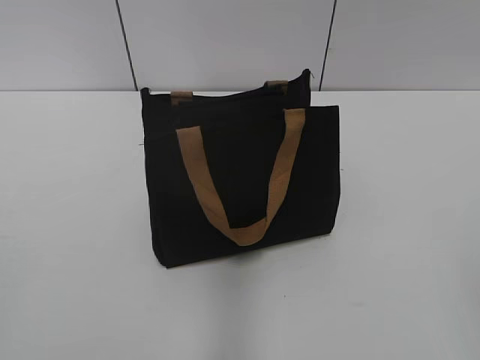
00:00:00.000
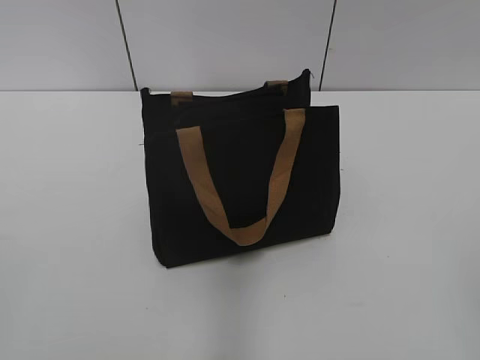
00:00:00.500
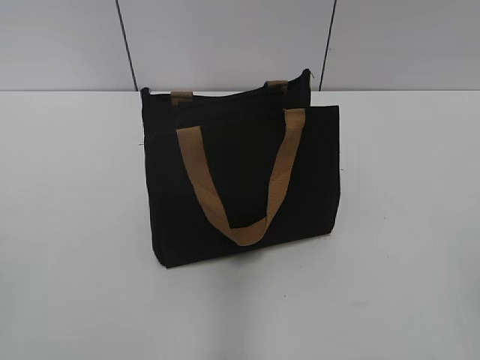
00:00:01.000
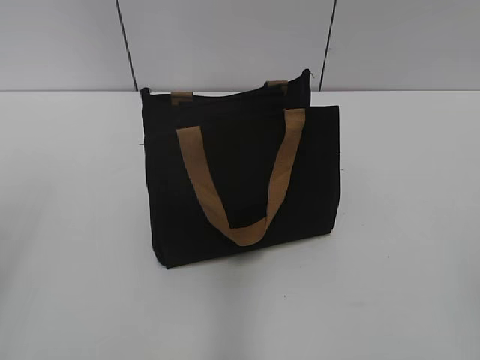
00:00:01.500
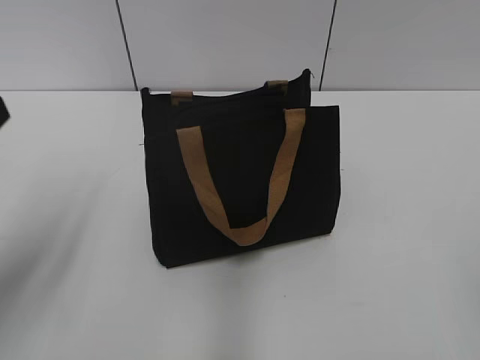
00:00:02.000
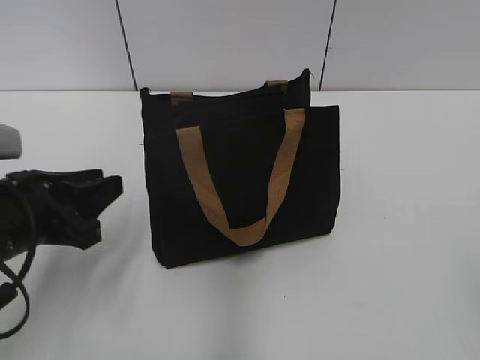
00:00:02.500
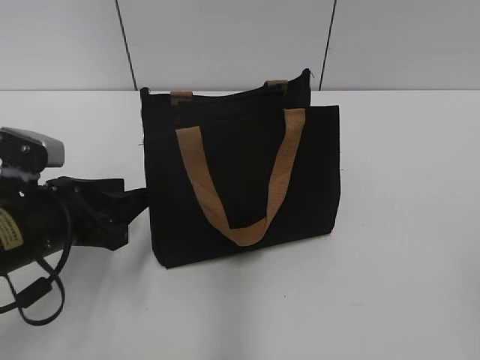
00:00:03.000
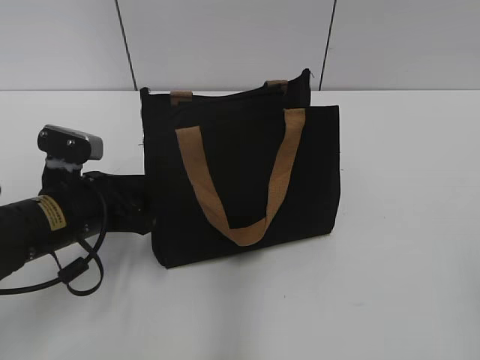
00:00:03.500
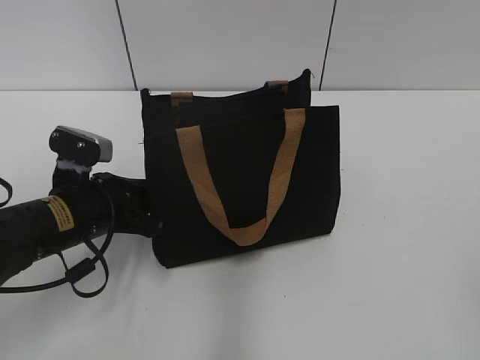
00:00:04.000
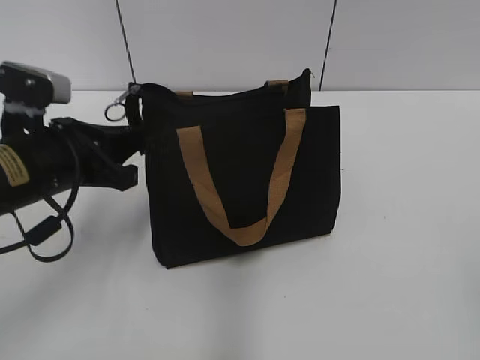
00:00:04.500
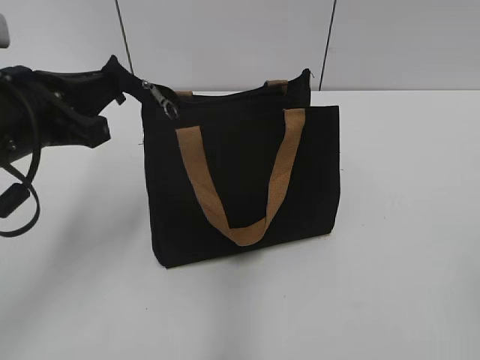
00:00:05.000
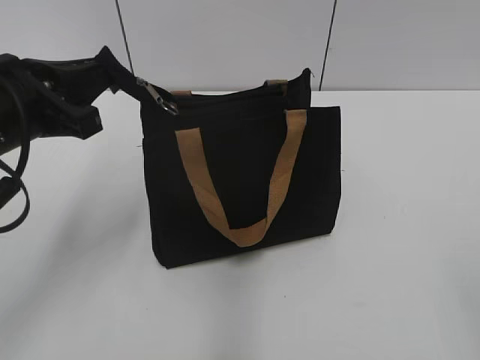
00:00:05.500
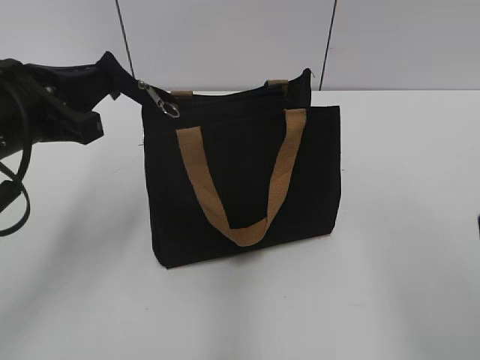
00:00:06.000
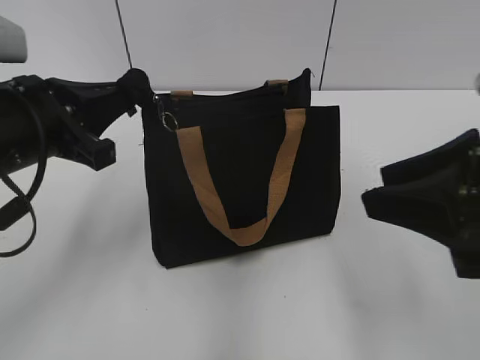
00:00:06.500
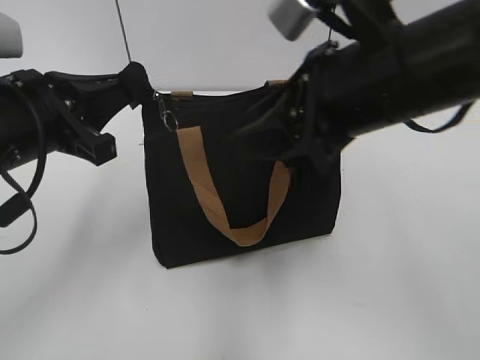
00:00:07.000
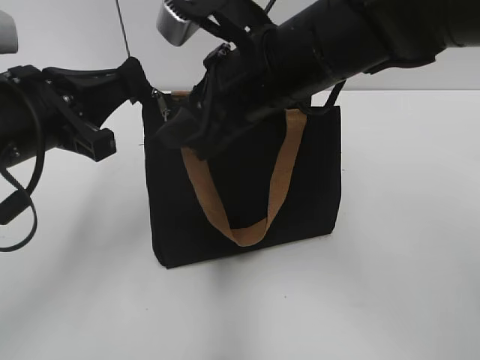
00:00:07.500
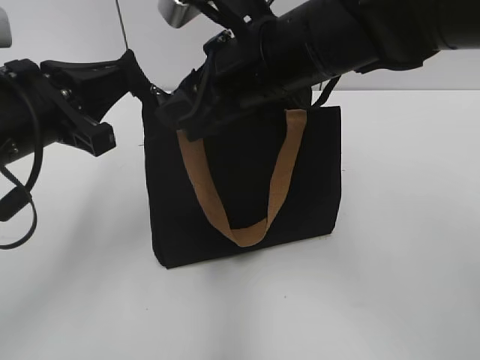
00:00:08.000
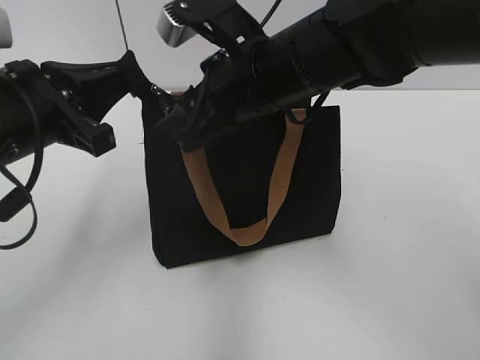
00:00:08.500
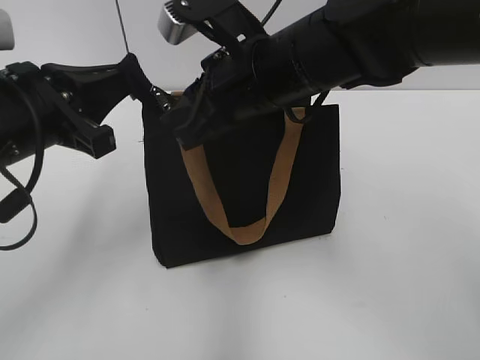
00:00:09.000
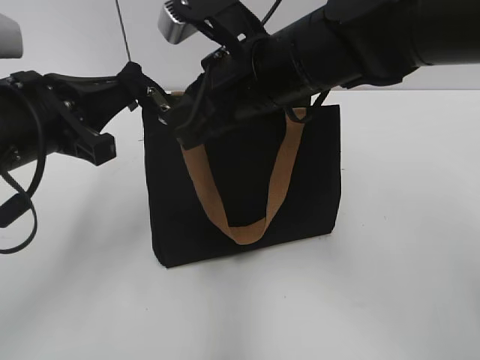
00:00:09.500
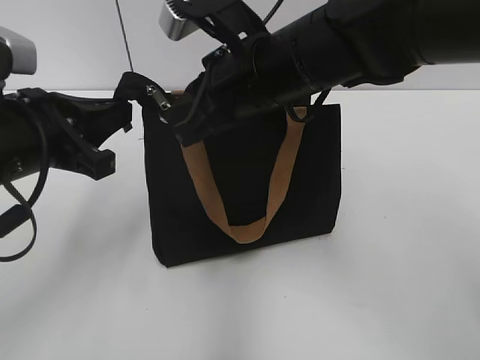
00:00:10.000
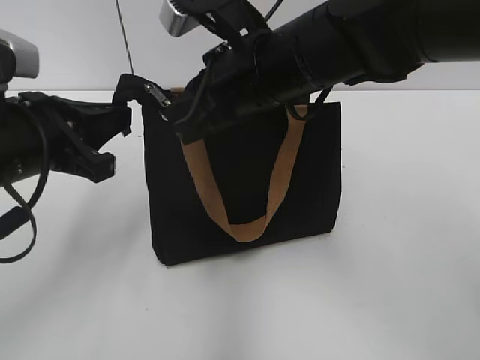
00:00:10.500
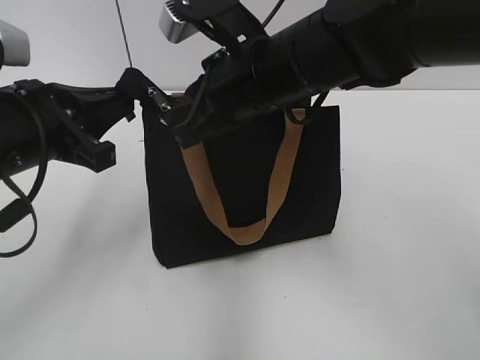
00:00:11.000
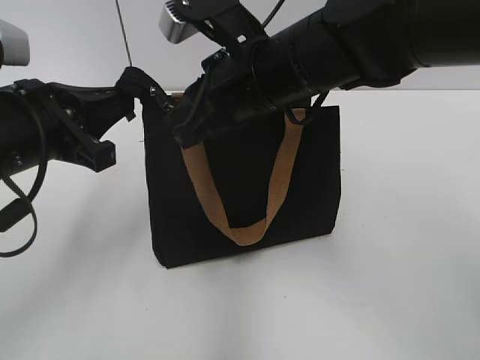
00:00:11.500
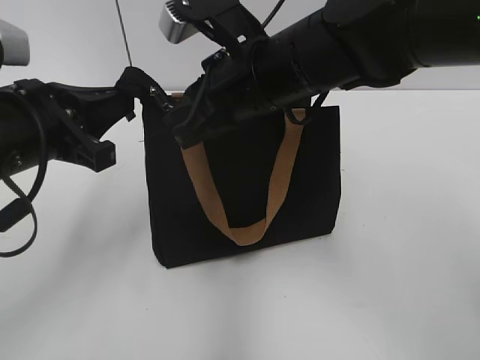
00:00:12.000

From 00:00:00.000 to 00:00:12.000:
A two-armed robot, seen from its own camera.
From 00:00:02.000 to 00:00:04.000: The left gripper shifts approximately 20 cm downward, forward and to the right, and closes up.
From 00:00:04.000 to 00:00:06.000: The left gripper heads upward, covering roughly 15 cm.
From 00:00:06.000 to 00:00:08.000: The right gripper goes about 30 cm forward and to the left.
From 00:00:08.000 to 00:00:10.000: The right gripper closes its fingers.
From 00:00:10.000 to 00:00:12.000: Both grippers stay about where they are.

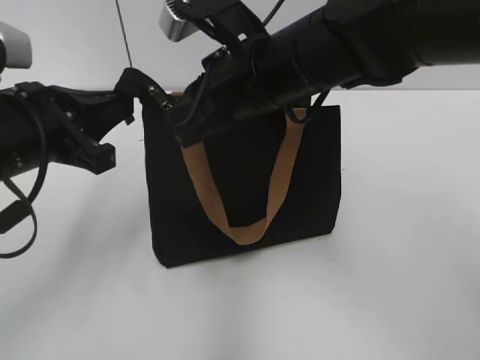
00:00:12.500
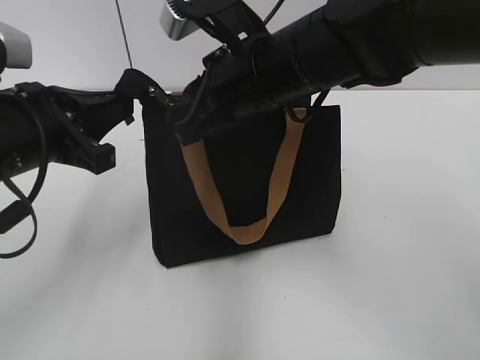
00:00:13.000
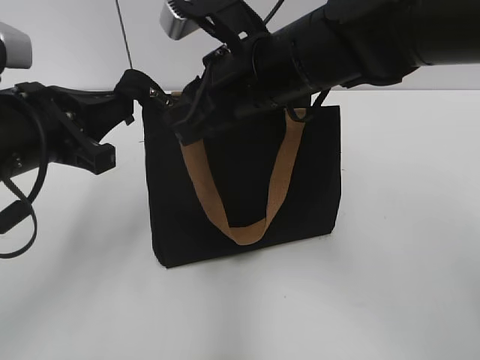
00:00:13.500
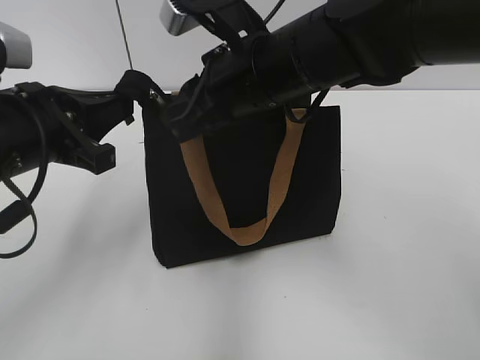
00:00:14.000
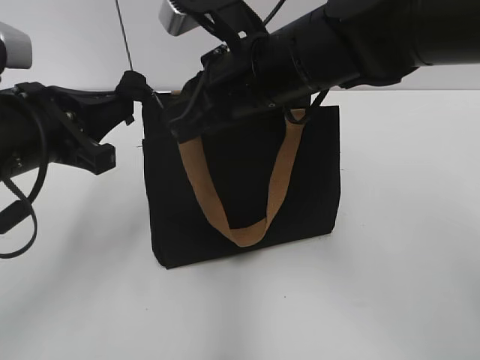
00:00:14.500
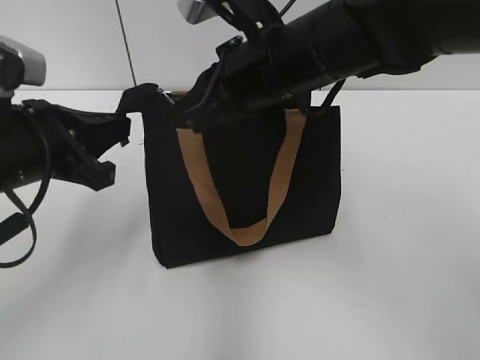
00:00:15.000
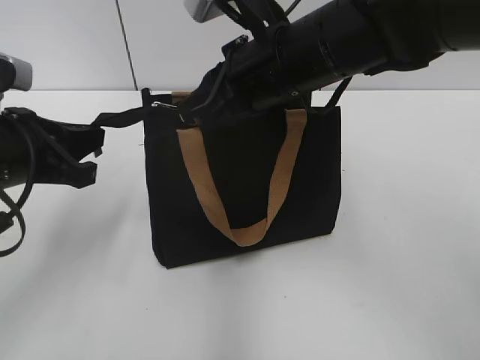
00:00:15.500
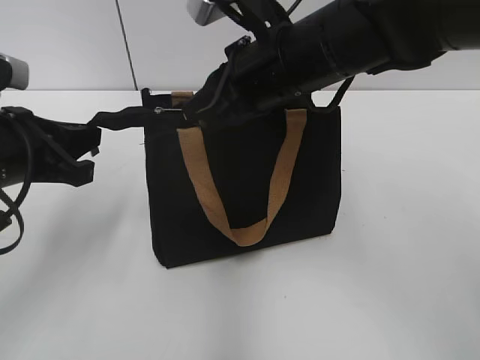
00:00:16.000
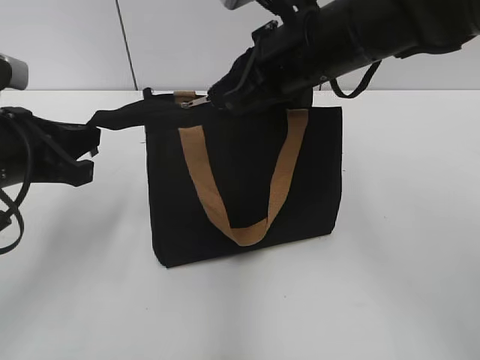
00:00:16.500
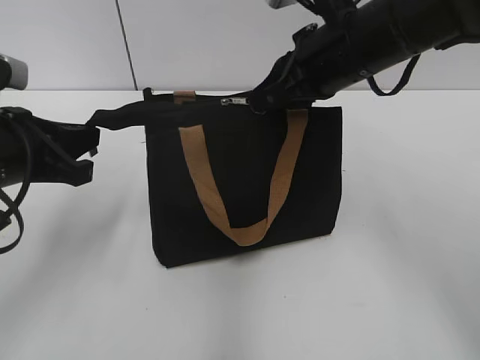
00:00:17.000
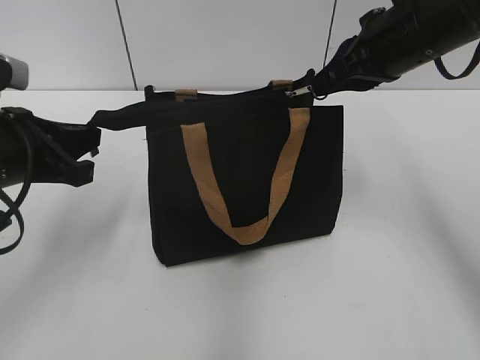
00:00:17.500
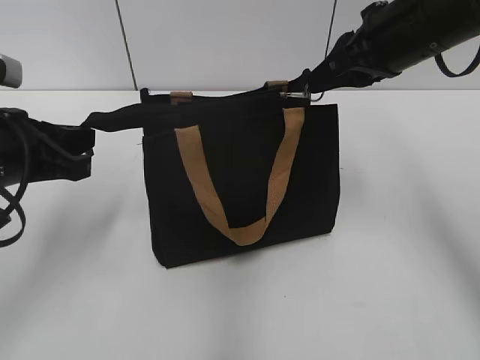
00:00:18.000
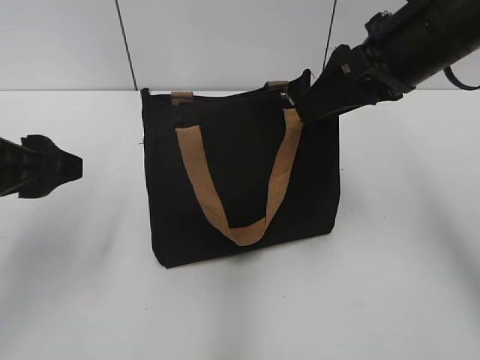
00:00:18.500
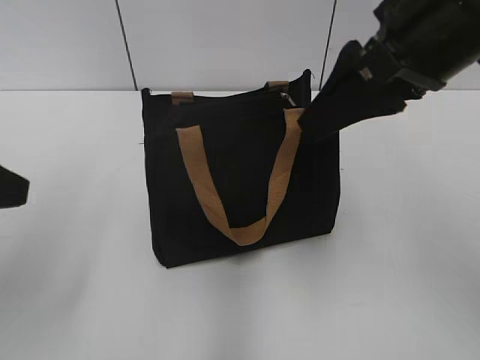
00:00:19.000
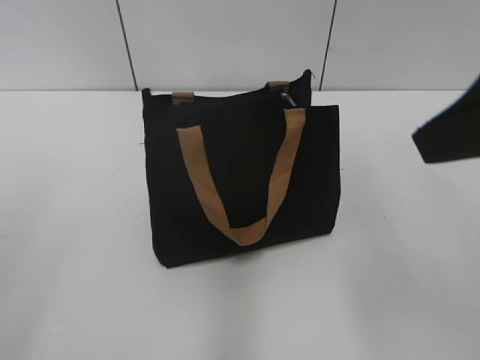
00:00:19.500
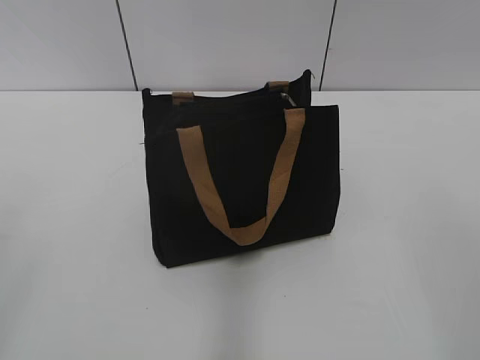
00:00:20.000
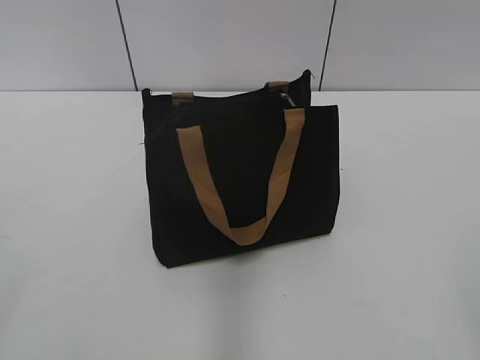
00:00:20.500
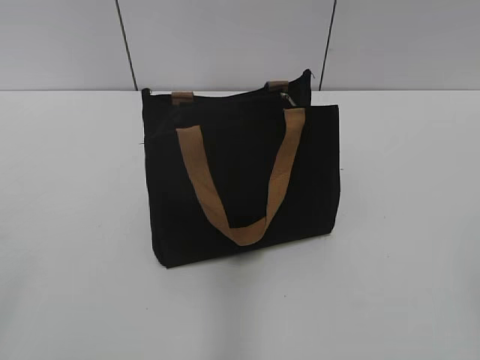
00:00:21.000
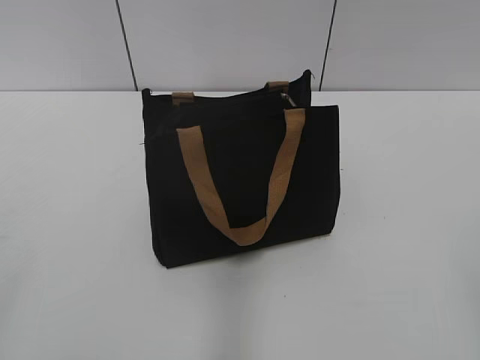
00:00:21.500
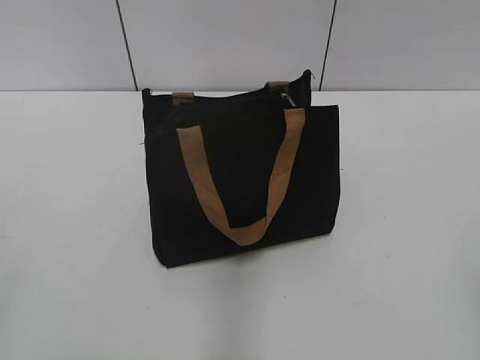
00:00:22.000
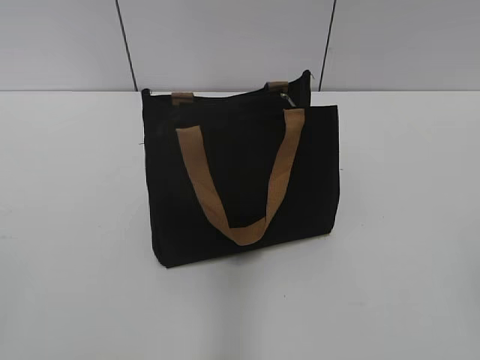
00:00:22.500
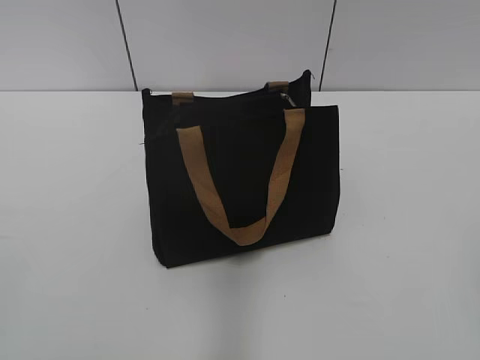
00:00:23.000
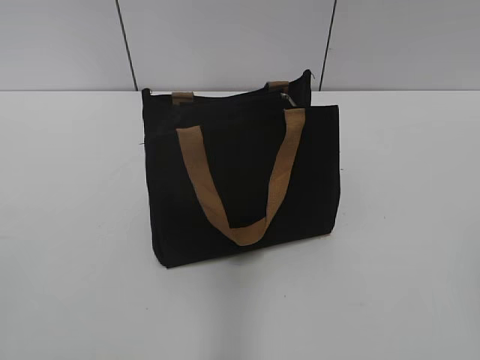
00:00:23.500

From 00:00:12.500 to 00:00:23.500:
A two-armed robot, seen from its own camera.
Step, from 00:00:12.500 to 00:00:18.000: Zip up the bag with your right hand.
From 00:00:12.500 to 00:00:14.500: The two grippers keep their place.
From 00:00:14.500 to 00:00:16.000: The grippers move only a little.
From 00:00:16.000 to 00:00:18.000: The right gripper travels to the right by some 10 cm.
From 00:00:18.000 to 00:00:20.000: The left gripper travels backward, upward and to the left by approximately 25 cm, and opens up, while the right gripper moves backward, about 30 cm, and opens up.

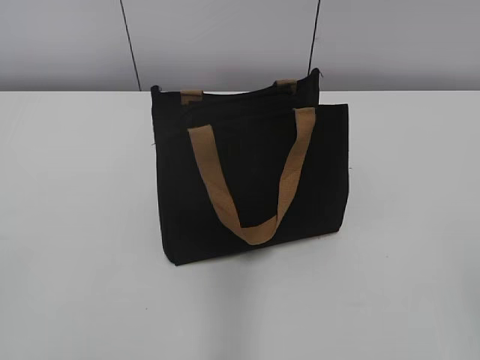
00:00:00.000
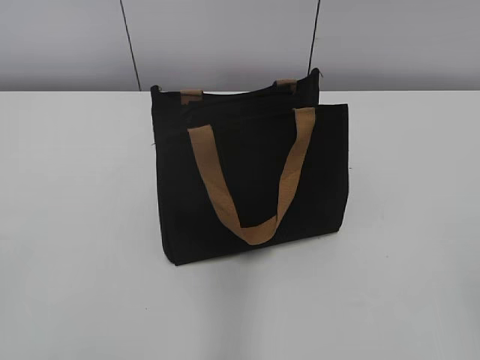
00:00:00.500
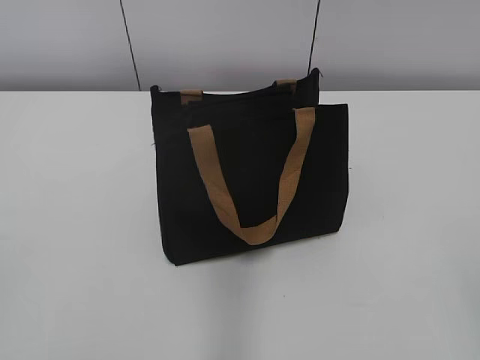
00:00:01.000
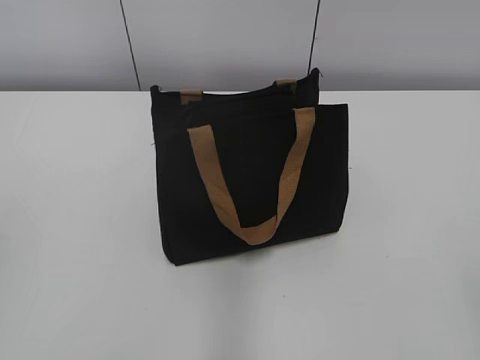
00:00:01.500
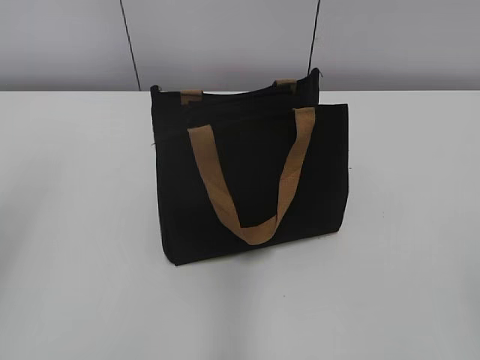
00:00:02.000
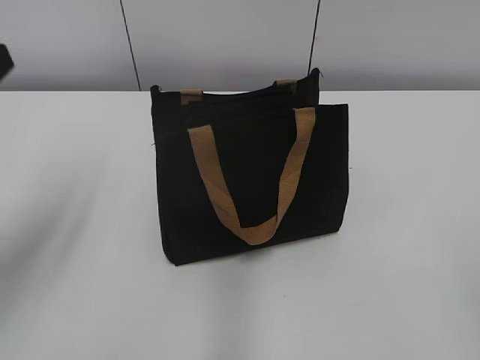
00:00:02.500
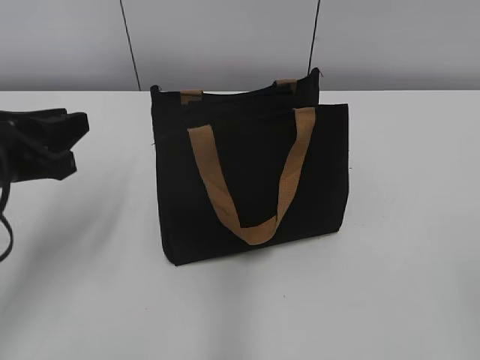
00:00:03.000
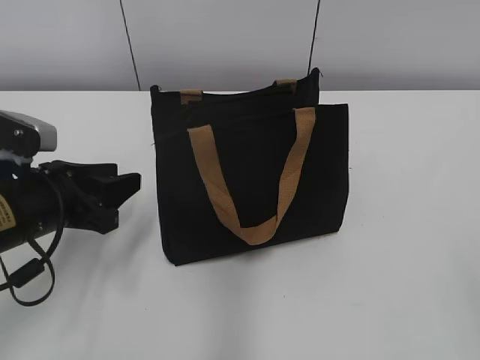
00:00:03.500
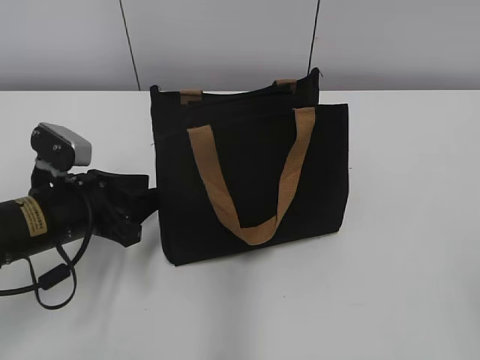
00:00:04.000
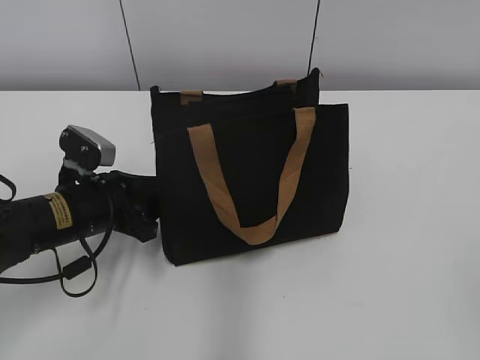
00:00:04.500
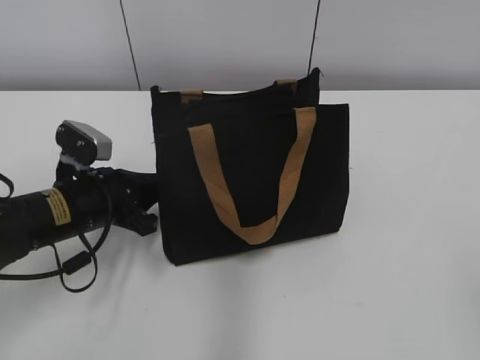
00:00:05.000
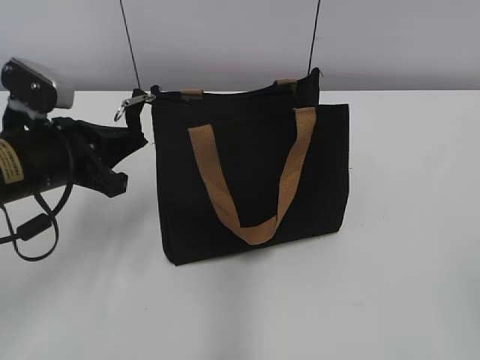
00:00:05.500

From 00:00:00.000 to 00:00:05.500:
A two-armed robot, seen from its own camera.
From 00:00:02.000 to 00:00:03.500: The left gripper moves downward, forward and to the right, about 25 cm.
From 00:00:03.500 to 00:00:05.500: The left gripper closes up.
